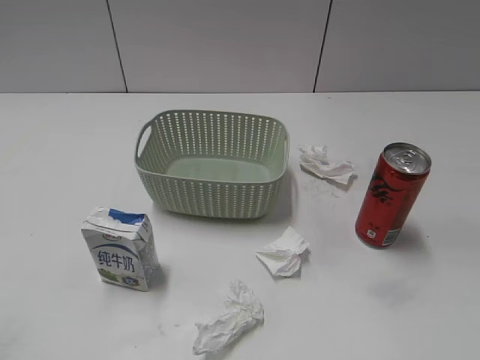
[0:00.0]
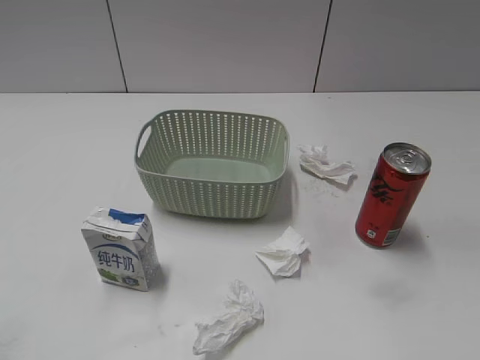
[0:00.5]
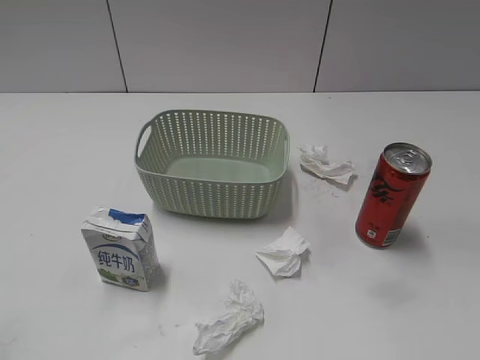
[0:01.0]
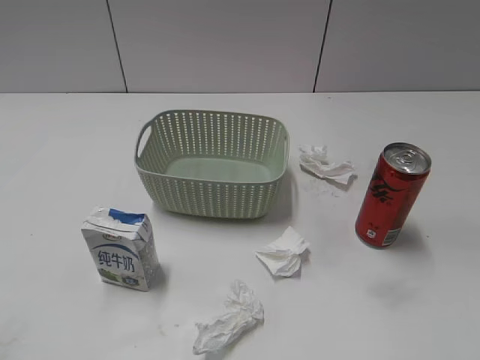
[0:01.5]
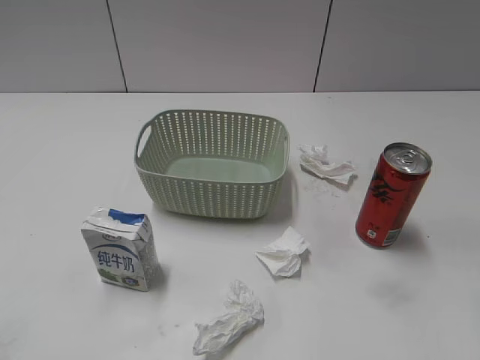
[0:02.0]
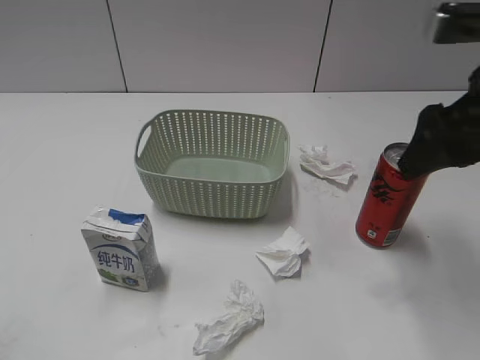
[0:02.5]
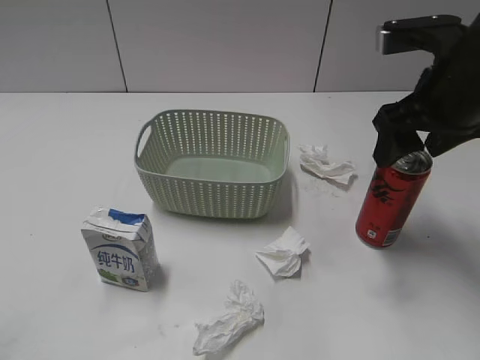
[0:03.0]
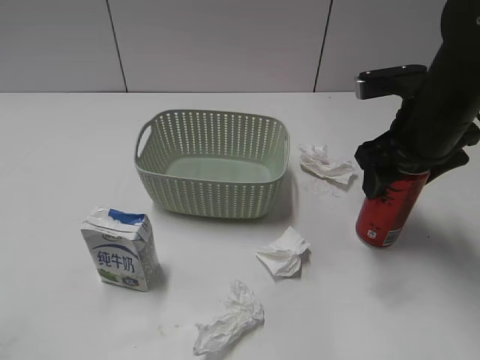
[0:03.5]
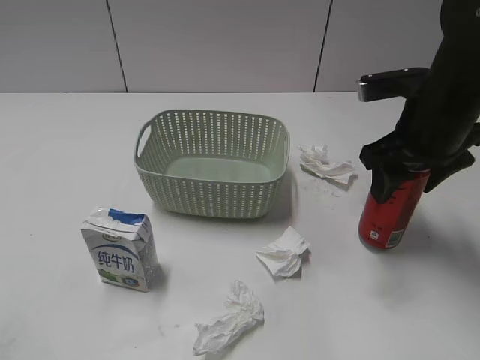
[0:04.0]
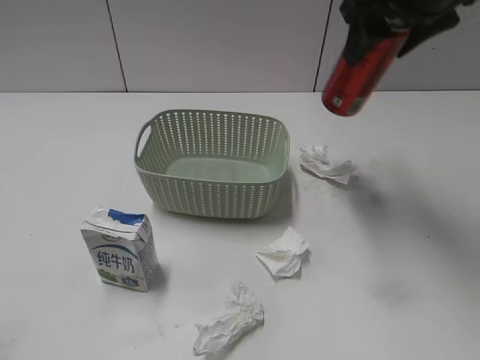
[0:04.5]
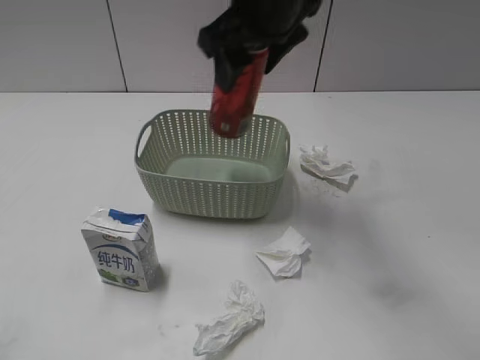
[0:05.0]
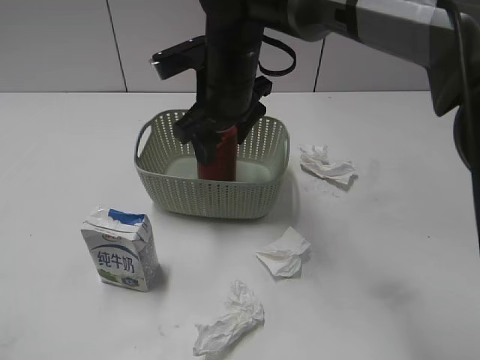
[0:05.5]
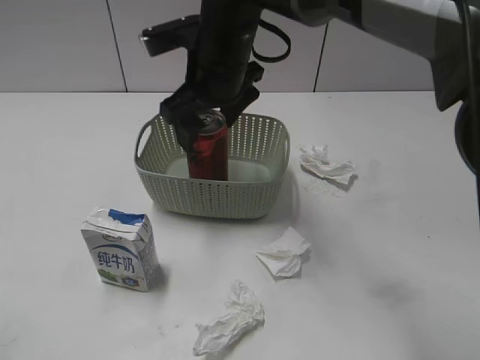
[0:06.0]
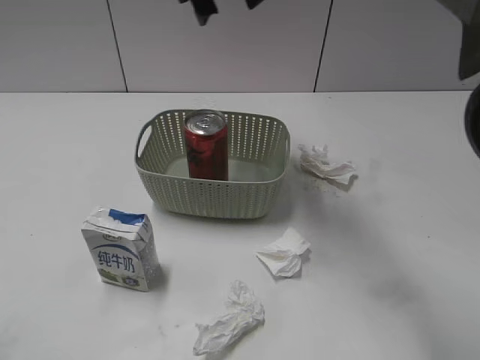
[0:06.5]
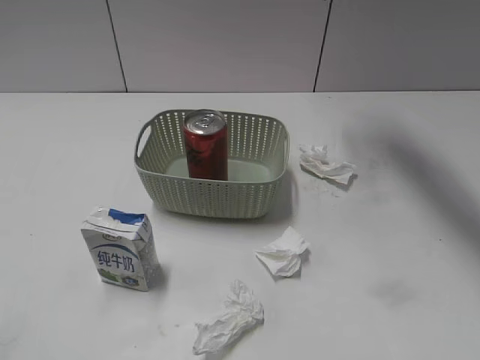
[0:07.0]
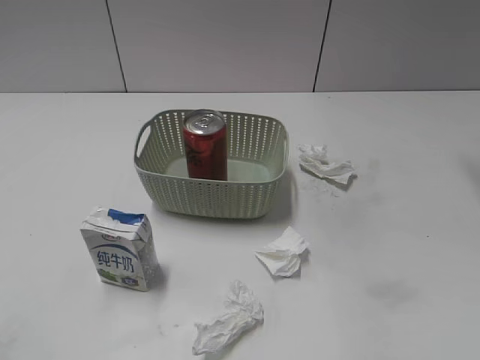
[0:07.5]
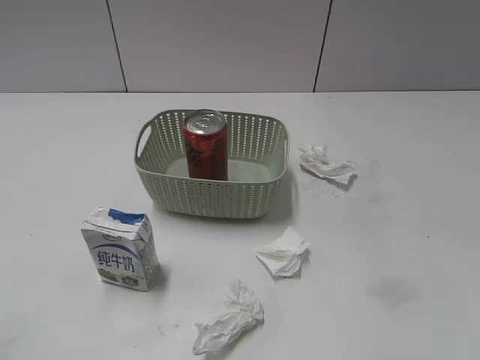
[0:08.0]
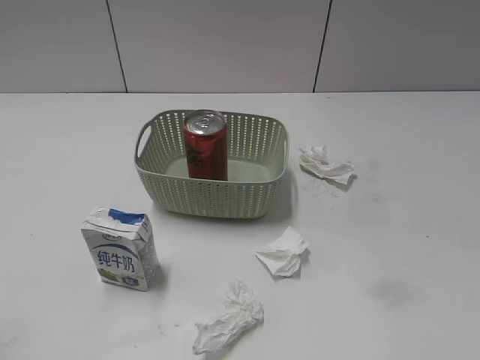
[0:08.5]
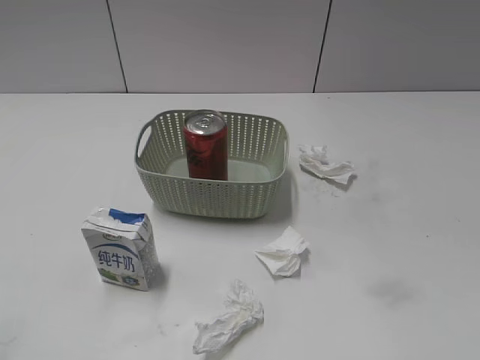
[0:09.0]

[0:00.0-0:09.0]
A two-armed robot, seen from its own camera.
Step, 0:02.5 to 0:03.5: Grasp the cola can with right gripper.
Step, 0:04.0 to 0:06.0: Place the cola can in the basket with right gripper.
0:02.0 to 0:04.5: The right gripper moves forward and to the left, roughly 25 cm, and closes.
0:04.5 to 0:07.0: The right gripper goes some 10 cm forward, reaches roughly 20 cm to the left, then returns, and opens.
0:07.0 to 0:09.0: The right gripper heads backward, covering roughly 50 cm.

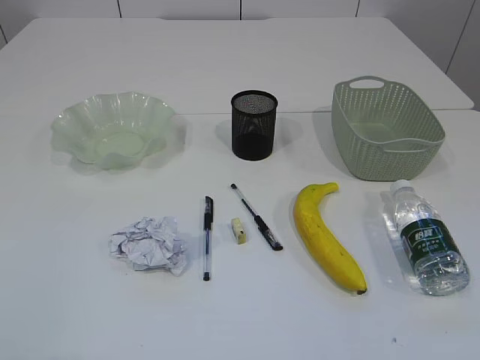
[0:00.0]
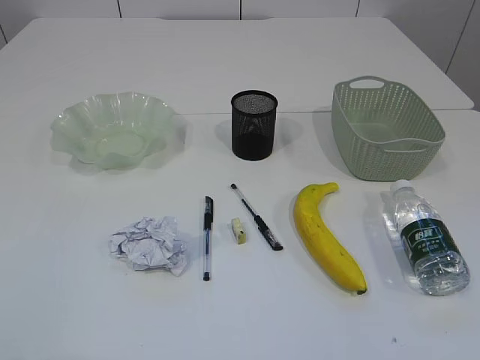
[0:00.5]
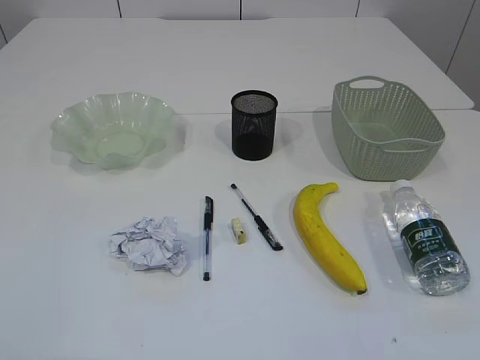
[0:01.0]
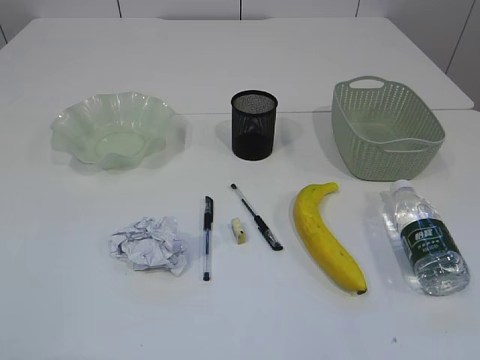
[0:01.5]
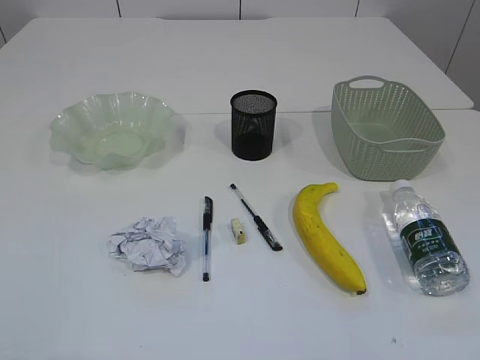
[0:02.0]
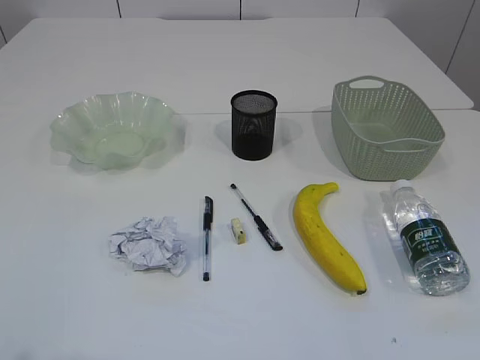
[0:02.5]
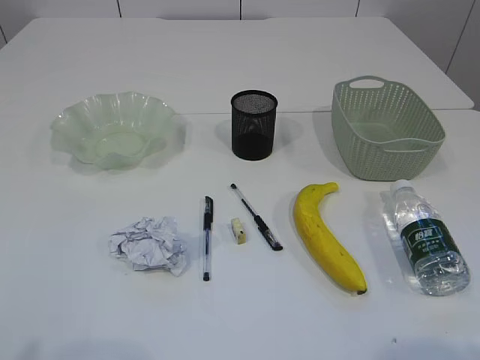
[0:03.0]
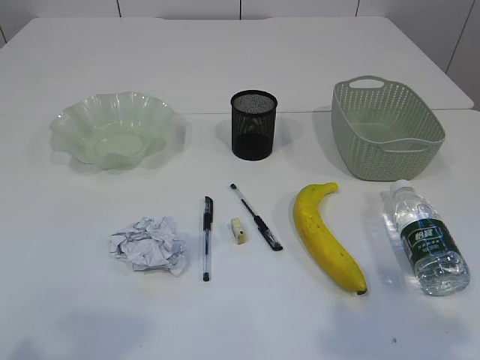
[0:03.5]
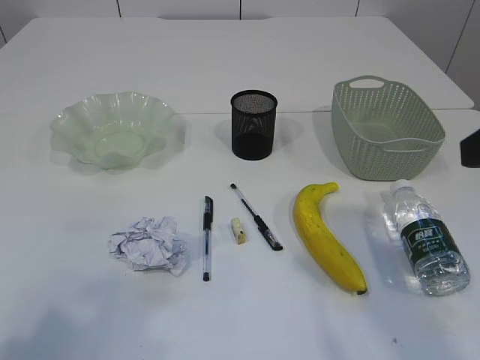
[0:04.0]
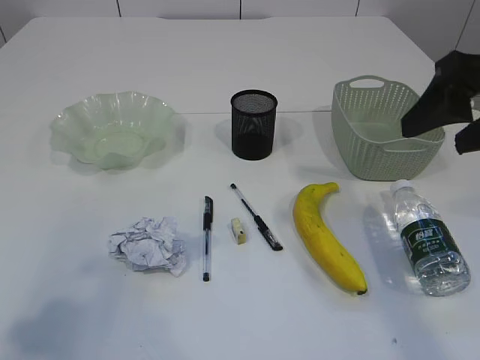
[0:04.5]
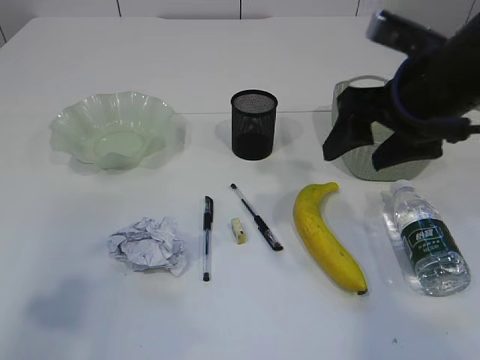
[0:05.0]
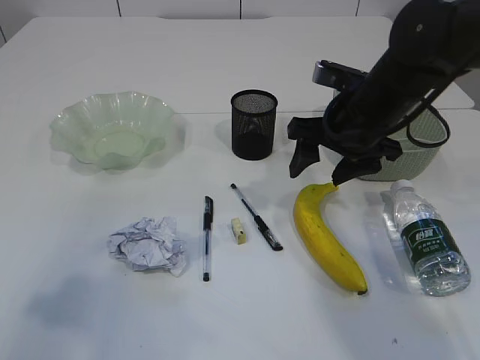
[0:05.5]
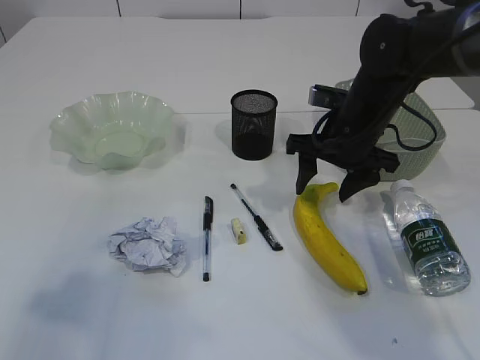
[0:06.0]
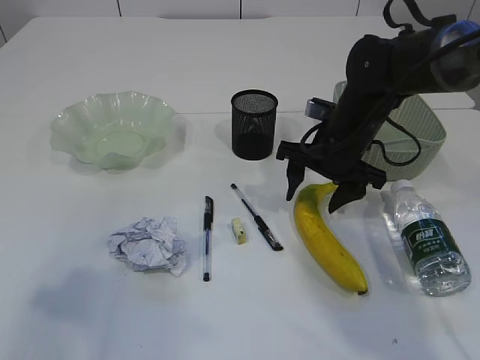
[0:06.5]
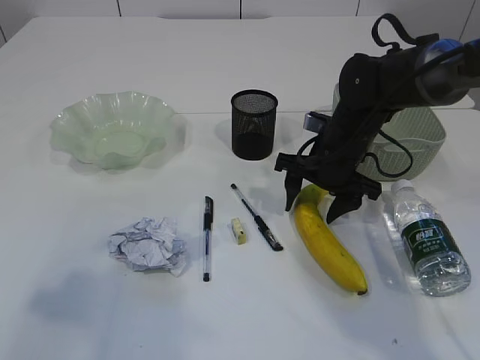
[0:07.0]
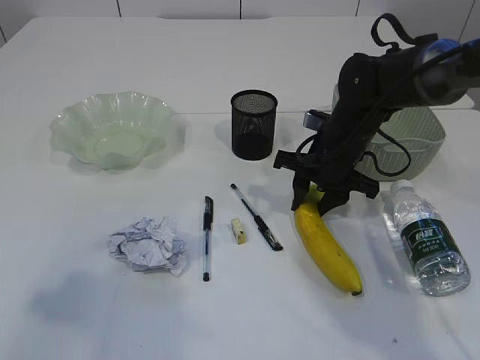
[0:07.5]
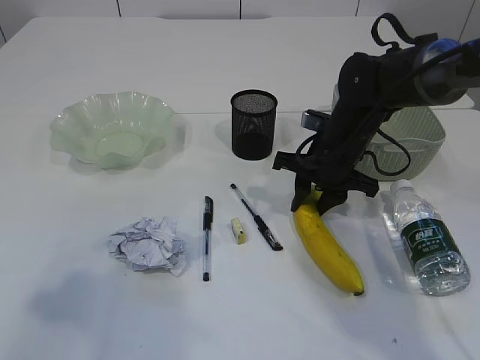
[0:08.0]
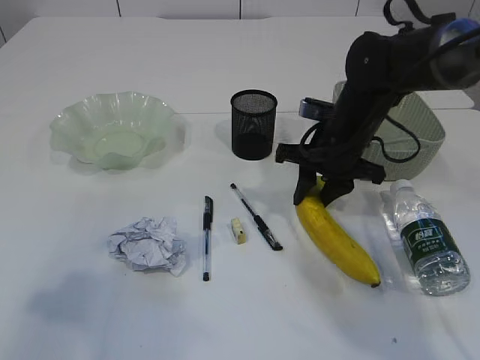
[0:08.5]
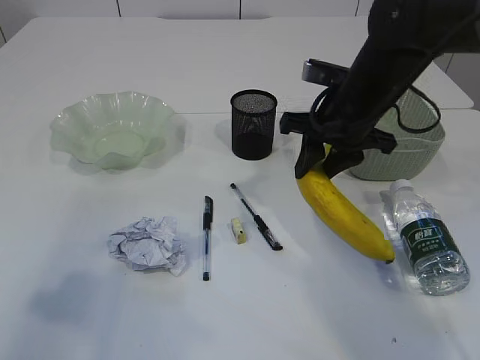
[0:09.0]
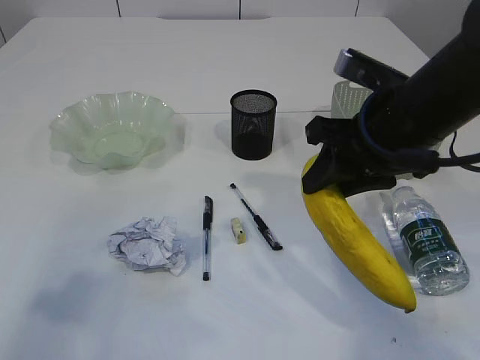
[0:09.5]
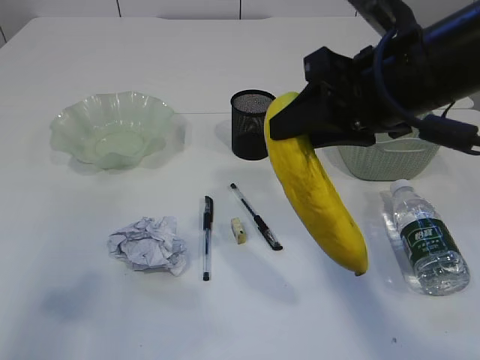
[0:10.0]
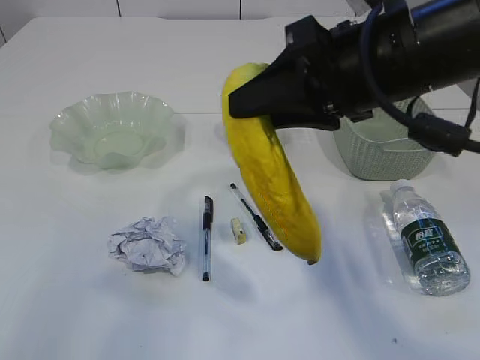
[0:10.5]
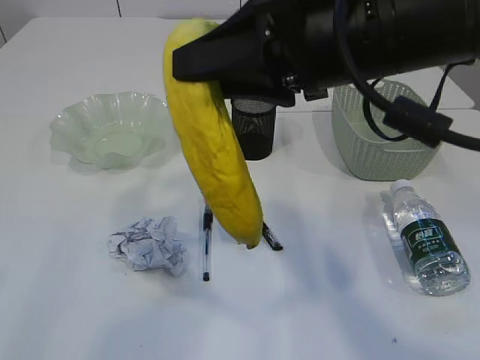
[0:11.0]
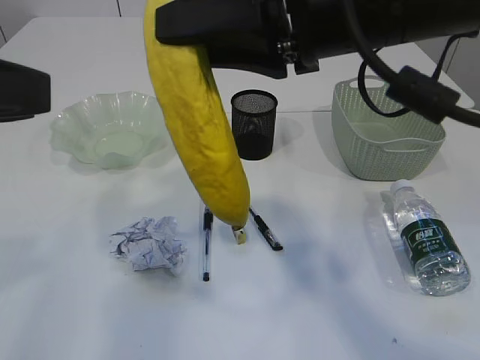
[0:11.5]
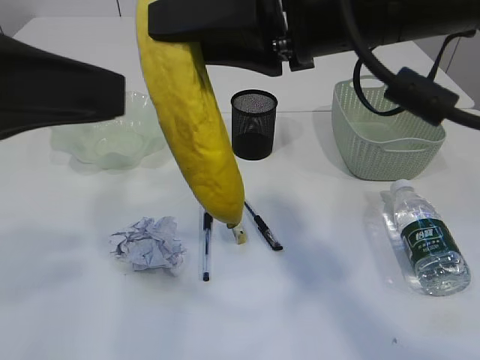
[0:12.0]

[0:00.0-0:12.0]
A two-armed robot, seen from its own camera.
0:02.0 to 0:04.0: The right gripper is displaced forward by roughly 20 cm; the left gripper shifts some 5 cm forward.
0:04.0 to 0:06.0: The left gripper heads forward, covering approximately 5 cm. Meanwhile the right gripper shifts roughly 30 cm forward and downward.
0:06.0 to 0:08.0: The right gripper closes.
0:08.0 to 0:10.0: The right gripper moves upward and backward, some 20 cm.
0:10.0 to 0:12.0: The left gripper shifts roughly 10 cm to the right and forward; the right gripper shifts about 10 cm upward and to the left.

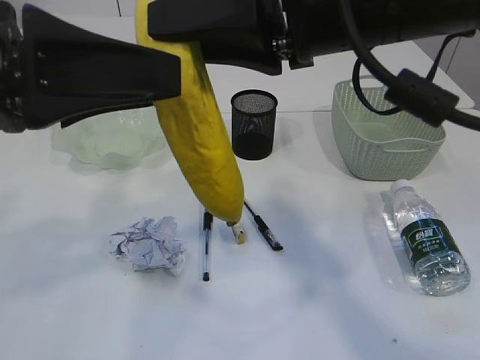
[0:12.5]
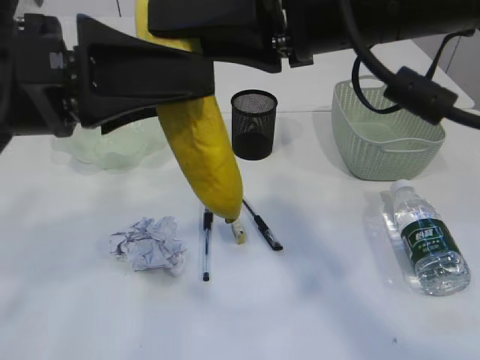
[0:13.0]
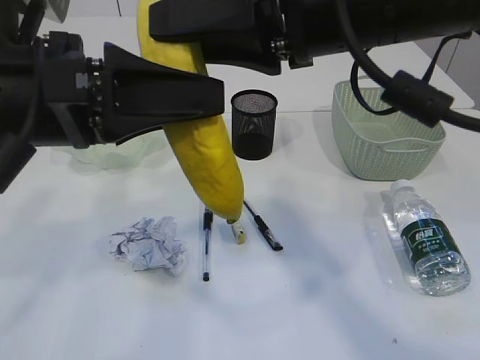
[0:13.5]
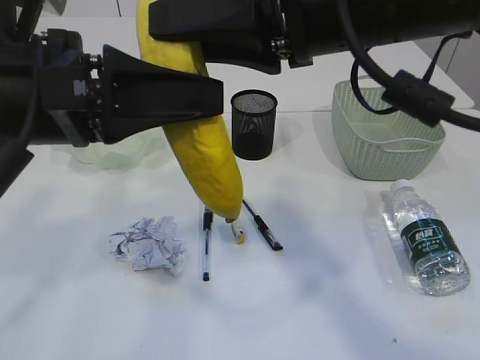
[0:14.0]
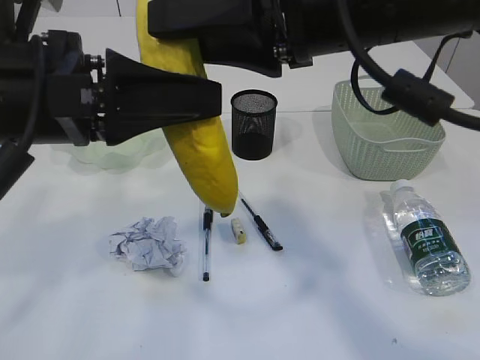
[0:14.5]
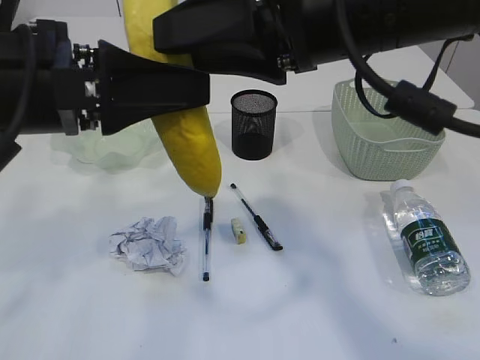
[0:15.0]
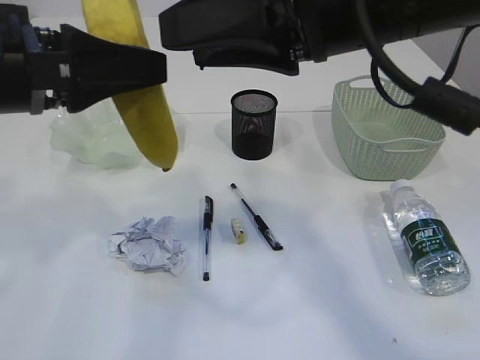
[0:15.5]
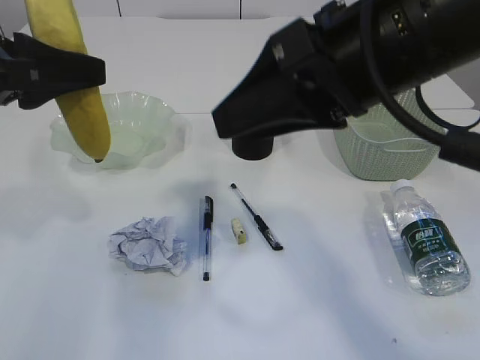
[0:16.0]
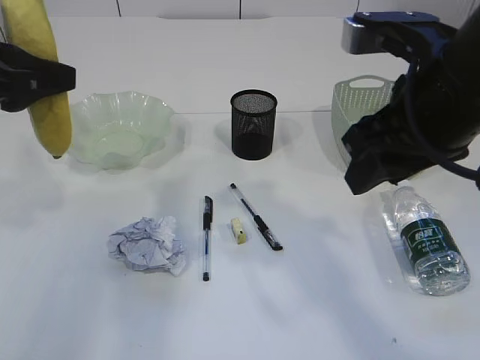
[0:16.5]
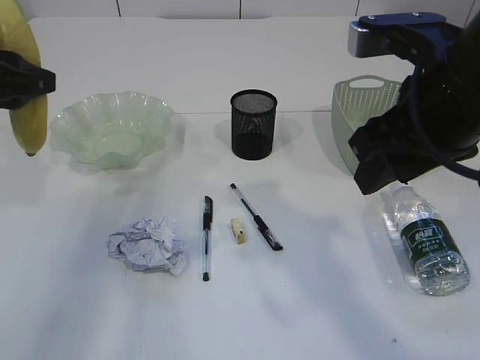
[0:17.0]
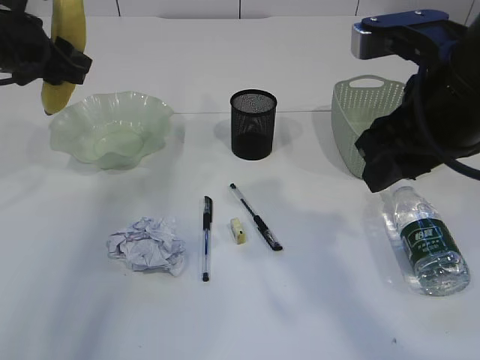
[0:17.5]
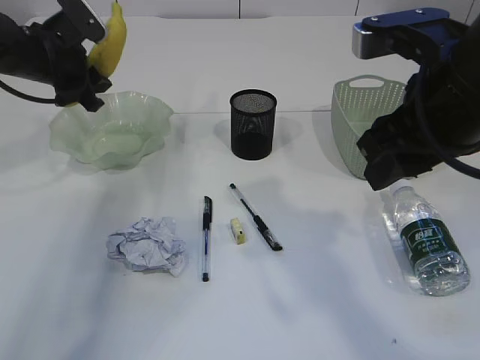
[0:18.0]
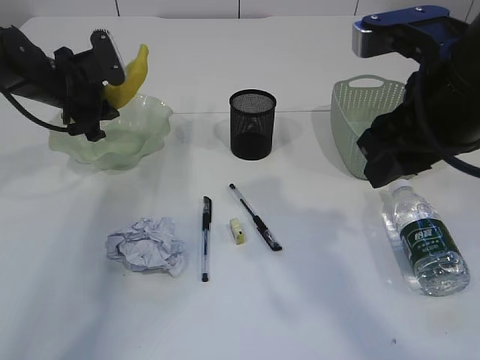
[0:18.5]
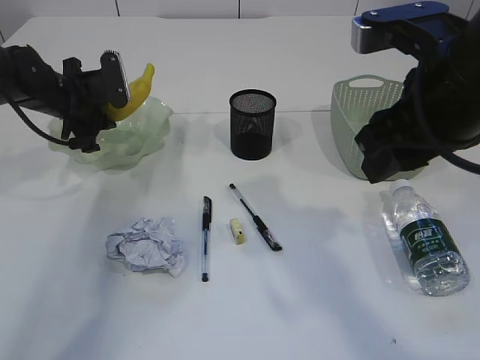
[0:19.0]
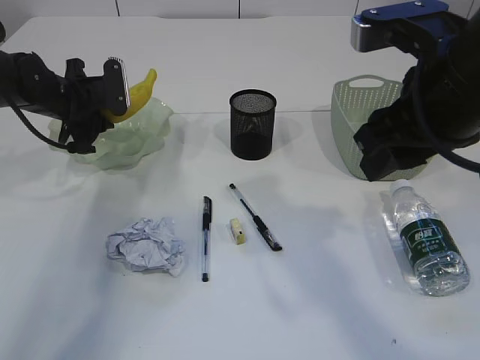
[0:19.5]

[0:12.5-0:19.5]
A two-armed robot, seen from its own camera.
Step, 0:12.5 to 0:15.0: Hand over the banana.
0:12.5 to 0:14.5: The left gripper closes.
0:14.5 to 0:16.0: The left gripper heads to the left, covering roughly 10 cm.
0:16.0 to 0:17.5: The right gripper goes approximately 5 cm to the right. The left gripper travels forward by roughly 15 cm.
0:17.5 to 0:19.5: The left gripper is displaced downward and forward by approximately 15 cm.
